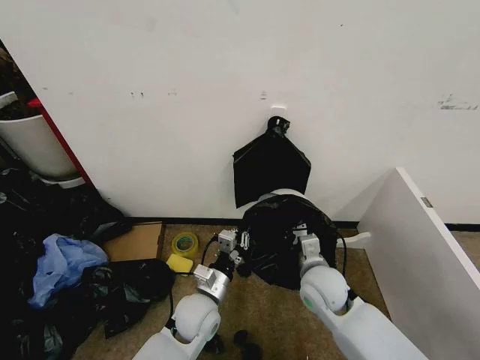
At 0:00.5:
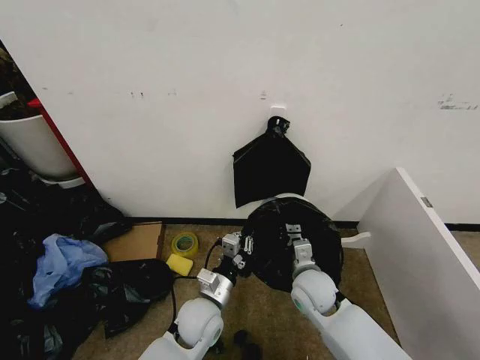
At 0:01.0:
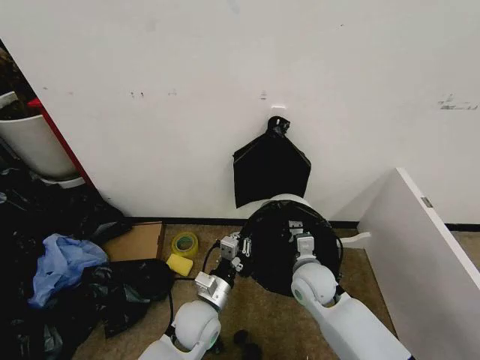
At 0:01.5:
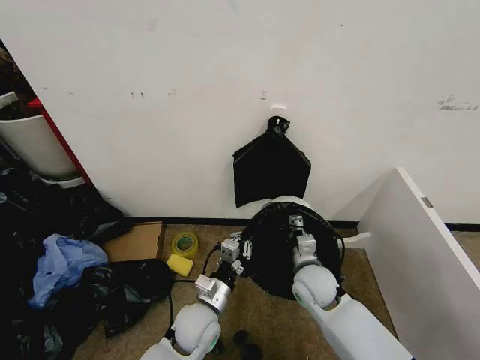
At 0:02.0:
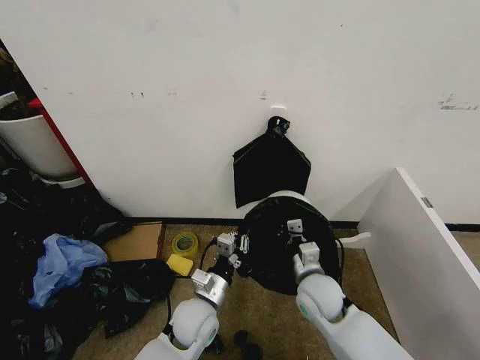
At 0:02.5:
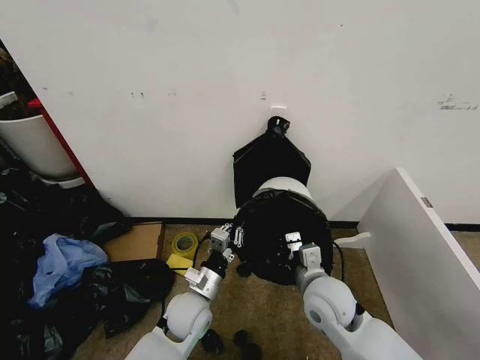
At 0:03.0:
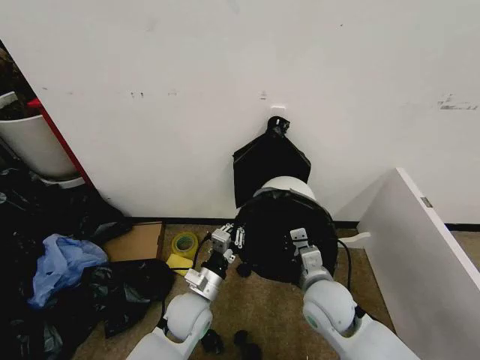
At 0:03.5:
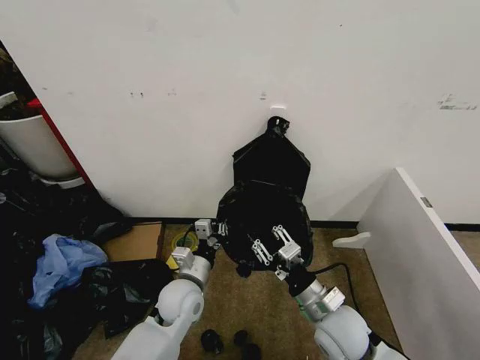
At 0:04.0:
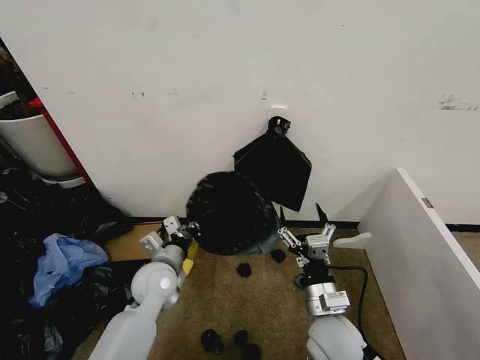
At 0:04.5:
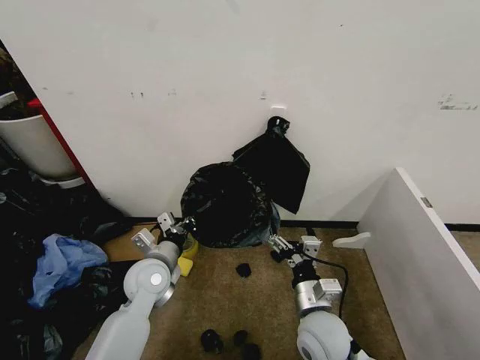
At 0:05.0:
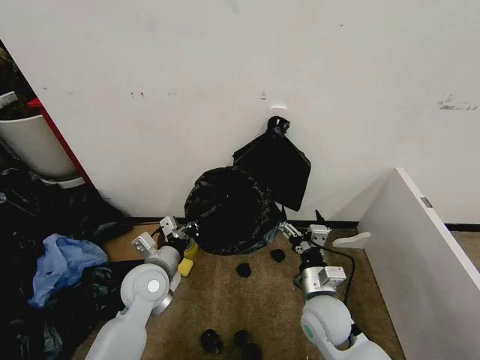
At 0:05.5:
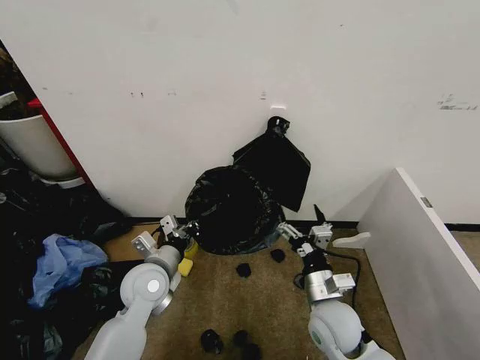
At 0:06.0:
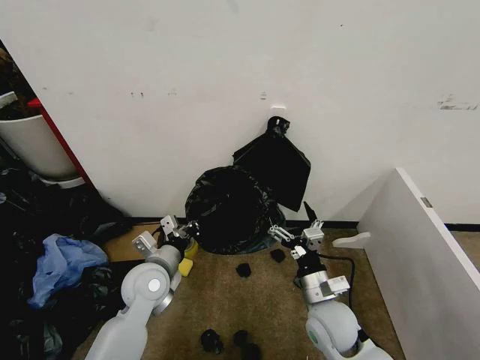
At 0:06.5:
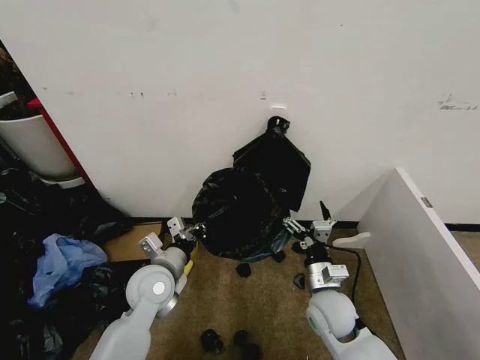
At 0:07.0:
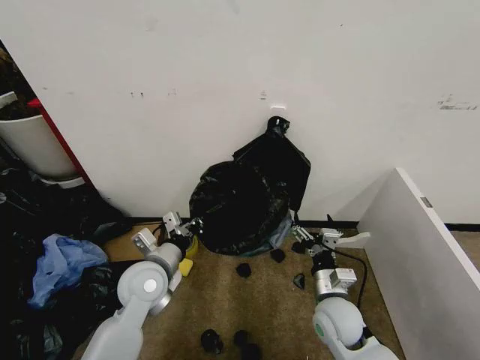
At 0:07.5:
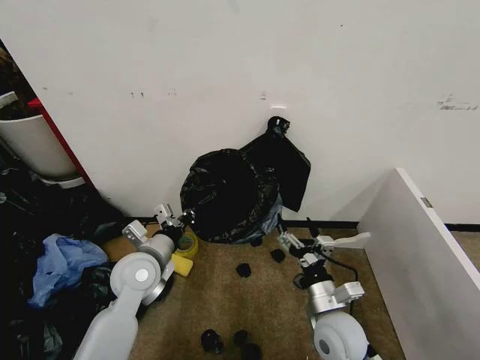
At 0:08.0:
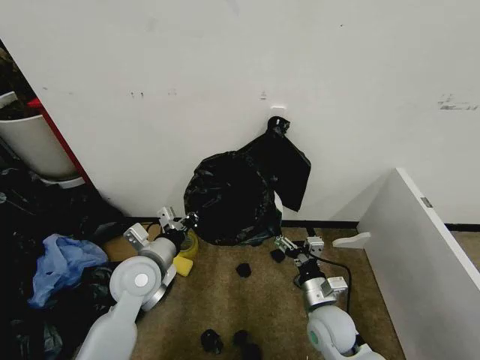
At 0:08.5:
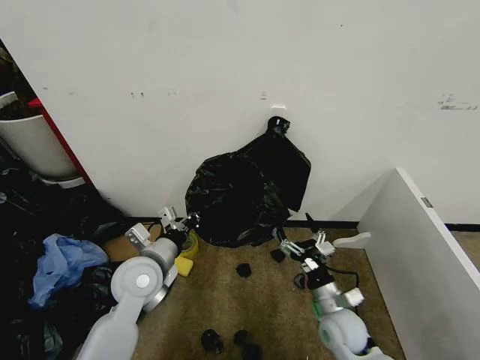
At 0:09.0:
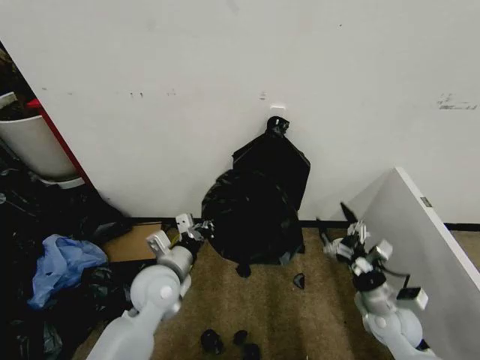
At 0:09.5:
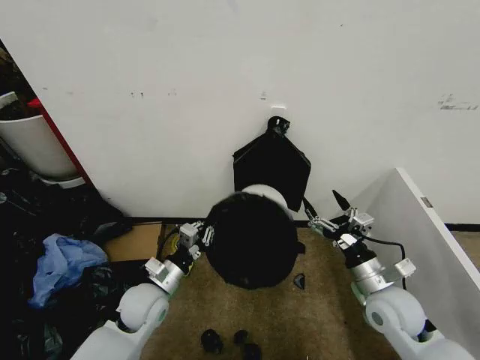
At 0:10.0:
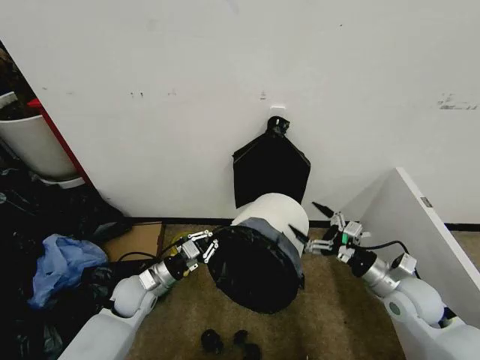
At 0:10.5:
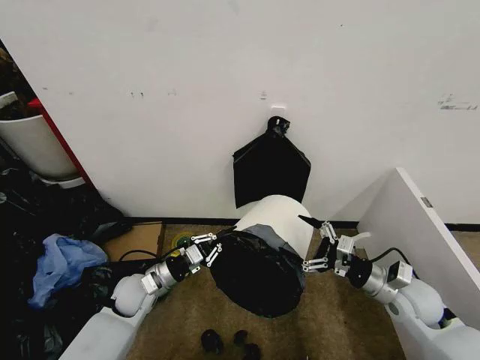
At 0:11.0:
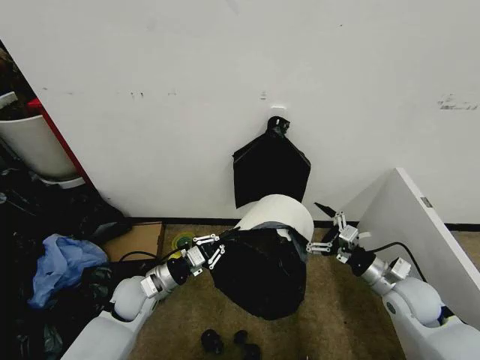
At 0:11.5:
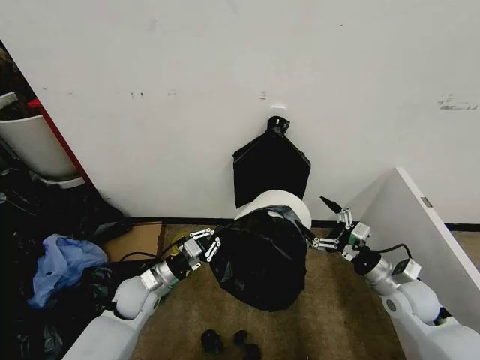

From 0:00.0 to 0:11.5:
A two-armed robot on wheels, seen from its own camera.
Task of the whole recording: Place the garbage bag over the trash bin.
From 0:00.0 to 0:02.0: The grippers move only a little.
From 0:02.0 to 0:04.0: The right gripper is displaced backward by roughly 10 cm, and opens up, while the left gripper moves to the left, forward and upward, some 15 cm.
From 0:07.5 to 0:09.5: The left gripper heads downward, covering about 10 cm. Meanwhile the right gripper shifts some 10 cm to the right.
From 0:09.5 to 0:11.5: The right gripper goes some 5 cm to the right.

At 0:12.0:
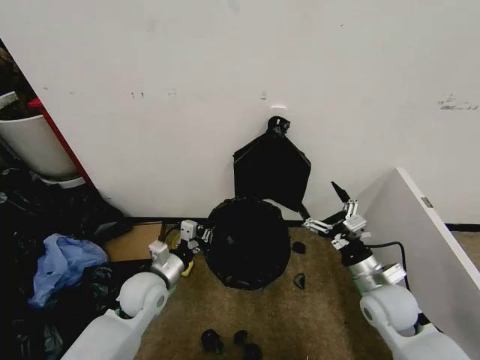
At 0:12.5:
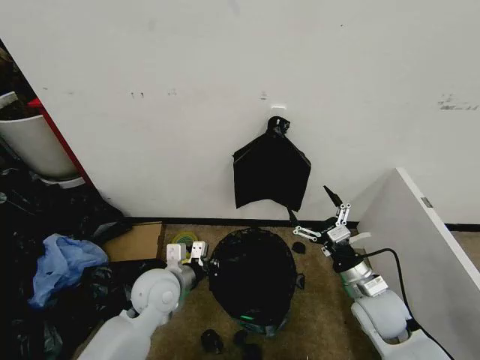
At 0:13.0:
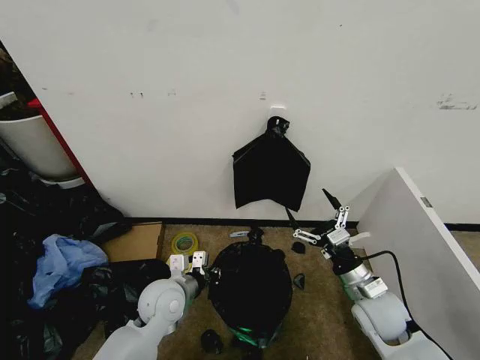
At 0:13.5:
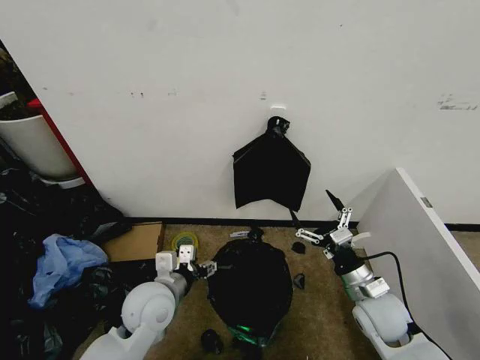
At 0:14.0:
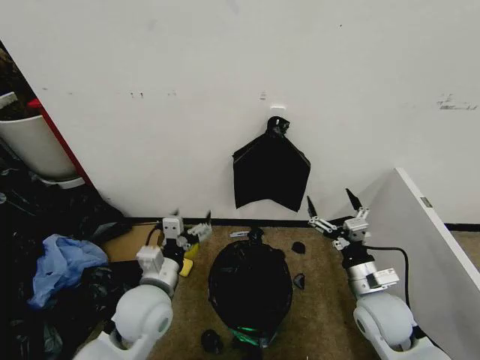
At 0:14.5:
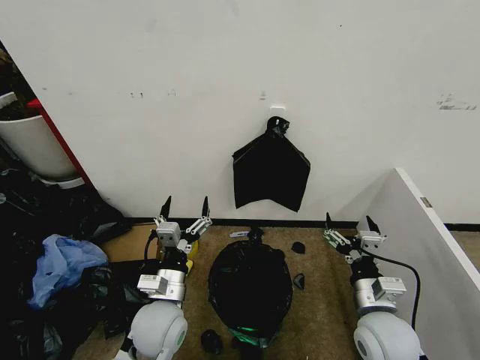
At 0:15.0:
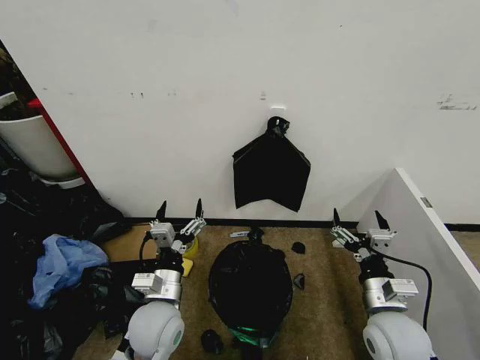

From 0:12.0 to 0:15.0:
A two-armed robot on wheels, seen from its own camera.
Task of the whole recording: Place the garbage bag over the trash bin.
From 0:12.0 to 0:13.5: The left gripper shifts by approximately 10 cm, and opens its fingers.
From 0:13.5 to 0:15.0: The right gripper heads backward, covering roughly 5 cm.

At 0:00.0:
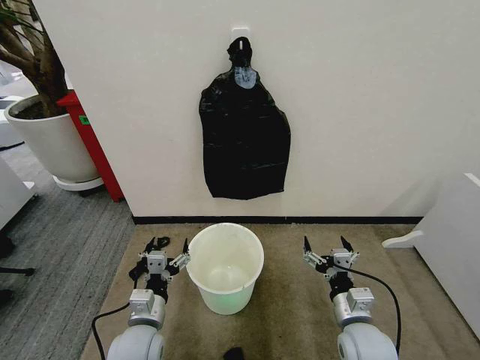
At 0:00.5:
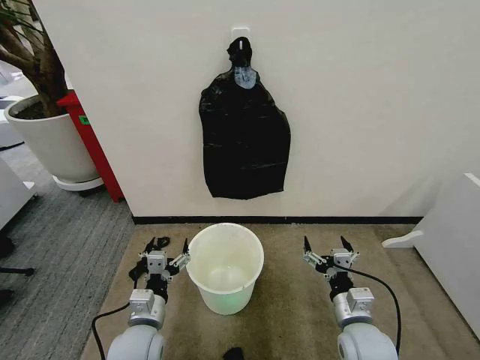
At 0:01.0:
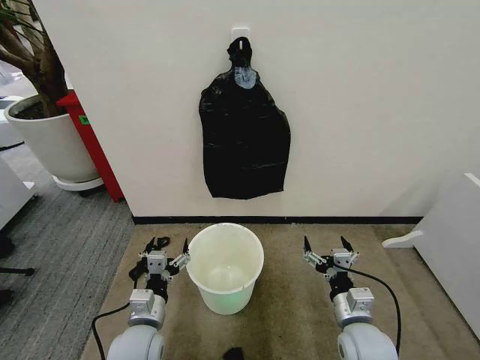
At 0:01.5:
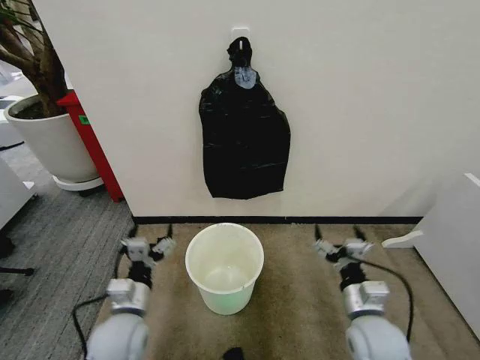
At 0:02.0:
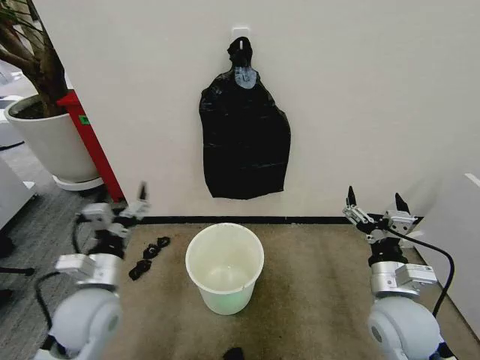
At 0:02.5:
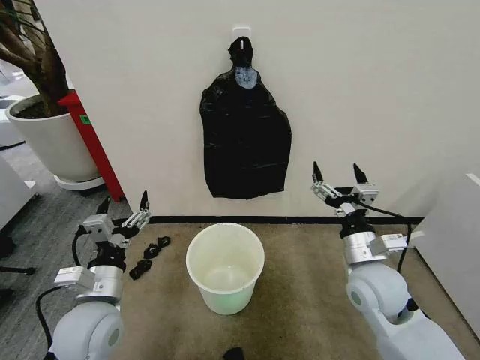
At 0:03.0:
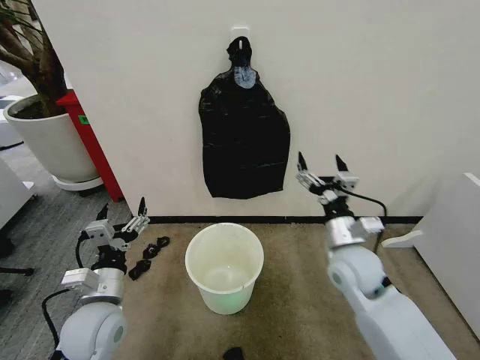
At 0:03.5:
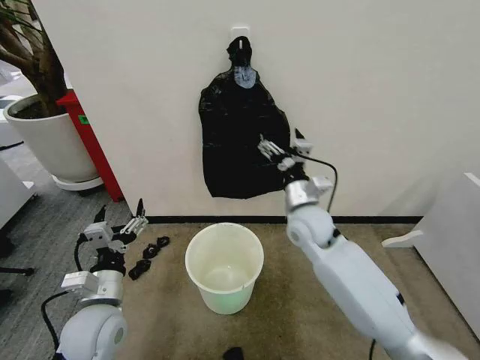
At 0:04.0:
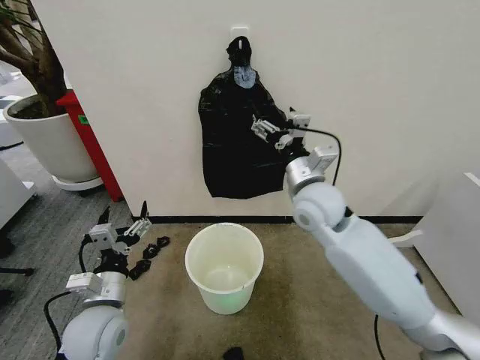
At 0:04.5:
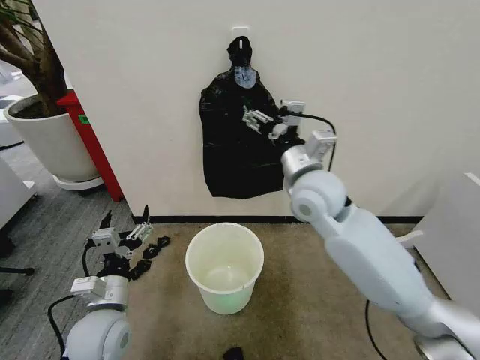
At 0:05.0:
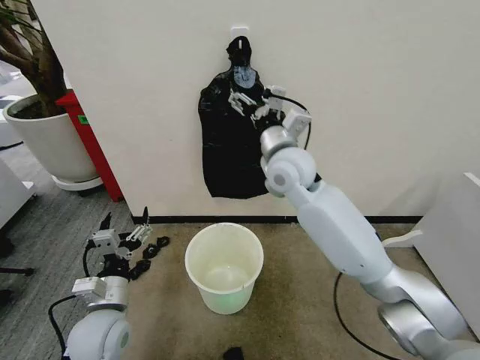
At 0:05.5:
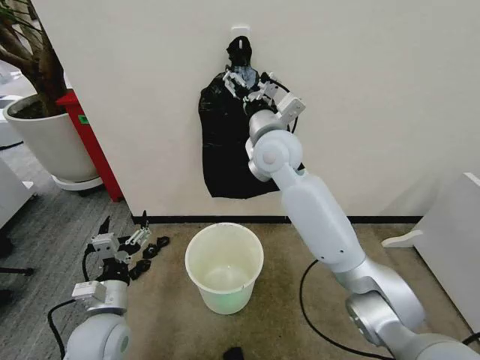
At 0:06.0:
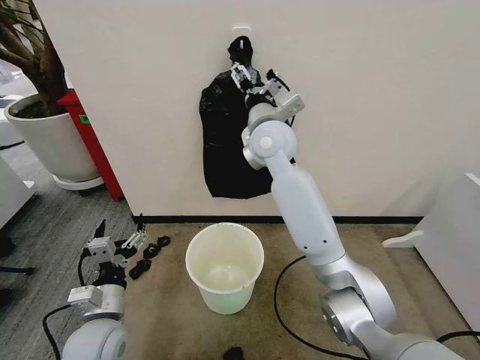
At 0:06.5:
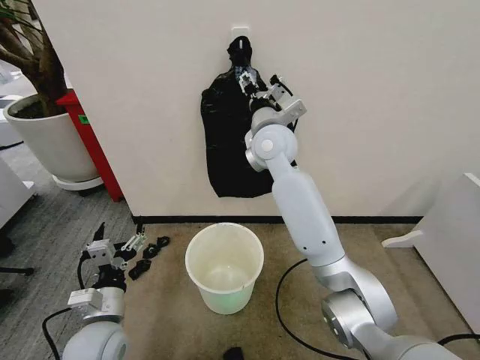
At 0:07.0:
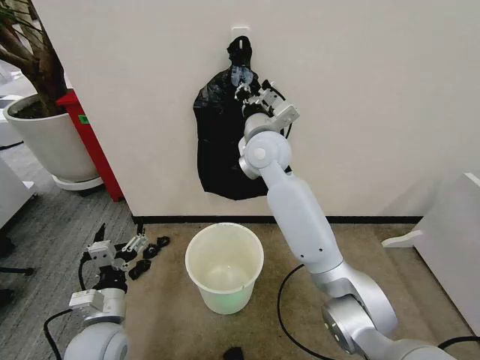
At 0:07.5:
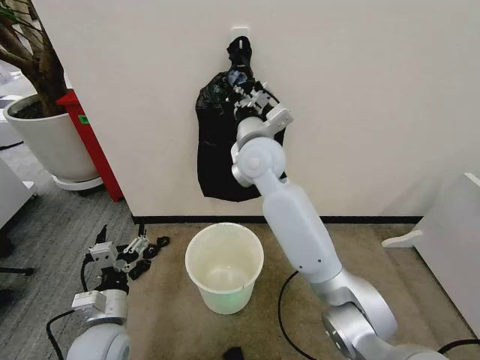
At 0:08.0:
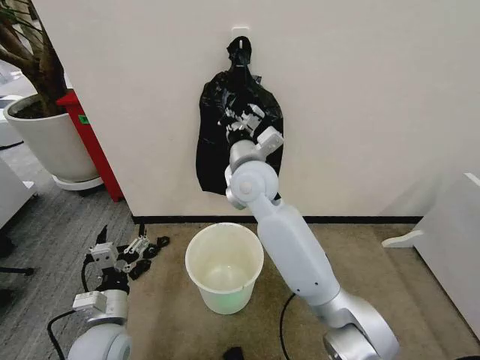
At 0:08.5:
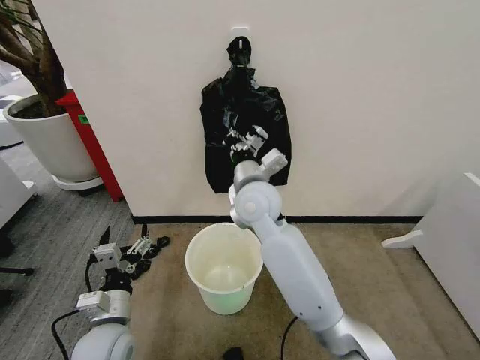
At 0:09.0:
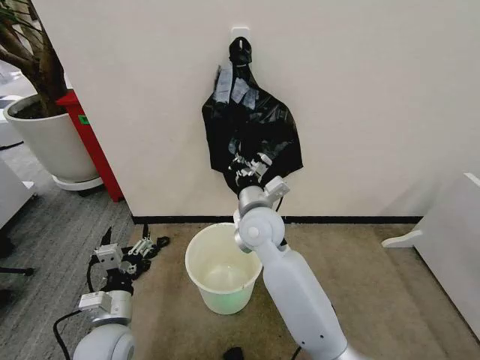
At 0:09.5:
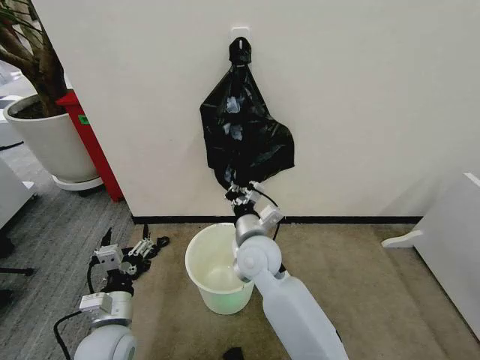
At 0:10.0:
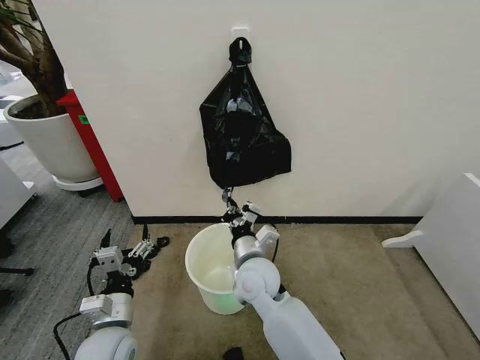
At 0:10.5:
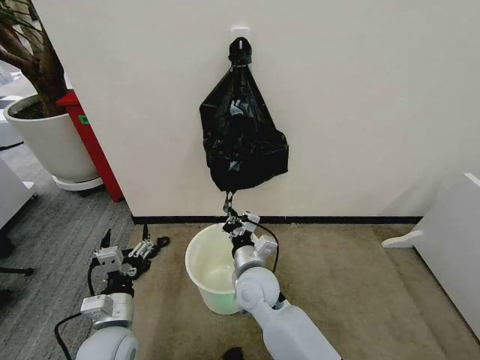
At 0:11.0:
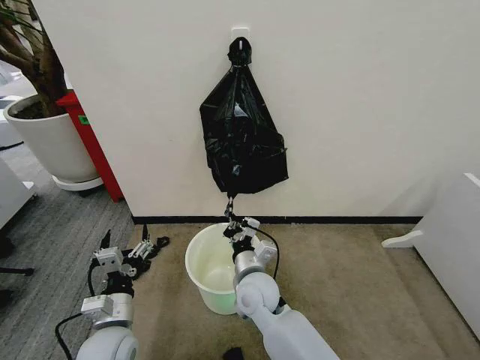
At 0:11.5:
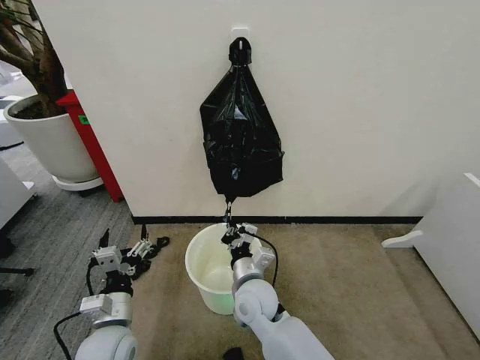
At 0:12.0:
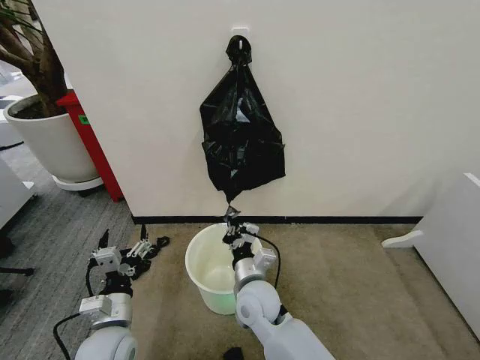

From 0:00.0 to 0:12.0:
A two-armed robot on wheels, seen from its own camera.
Task of the whole recording: Place the garbage bag over the trash bin.
From 0:02.0 to 0:04.0: The right gripper travels forward, to the left and upward by roughly 25 cm.
From 0:04.0 to 0:06.0: The right gripper shifts roughly 15 cm forward, to the left and upward.
From 0:06.0 to 0:08.0: The right gripper moves backward and downward, some 5 cm, and closes up.
From 0:08.0 to 0:10.0: The right gripper is displaced downward and backward by about 20 cm.
From 0:10.0 to 0:12.0: The right gripper moves approximately 5 cm.
